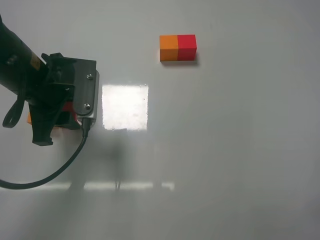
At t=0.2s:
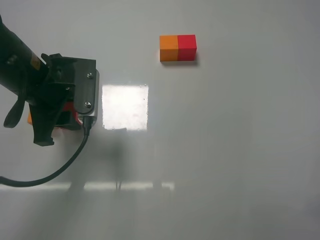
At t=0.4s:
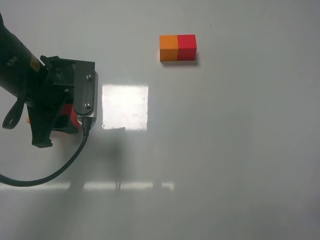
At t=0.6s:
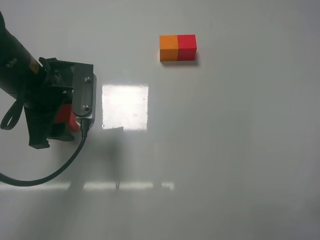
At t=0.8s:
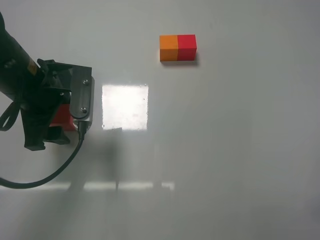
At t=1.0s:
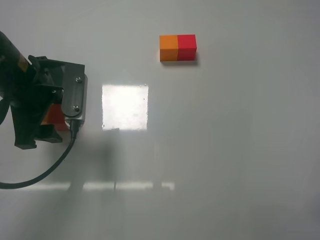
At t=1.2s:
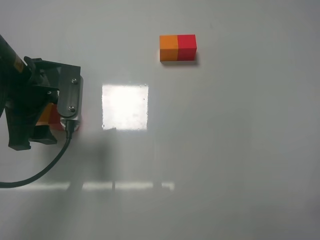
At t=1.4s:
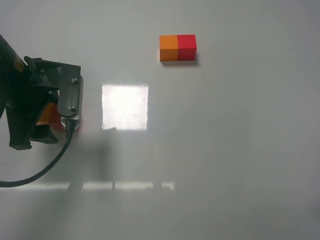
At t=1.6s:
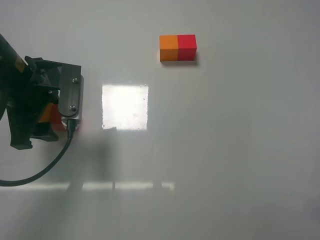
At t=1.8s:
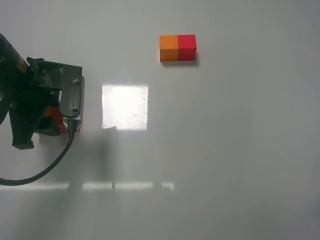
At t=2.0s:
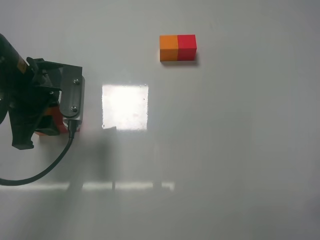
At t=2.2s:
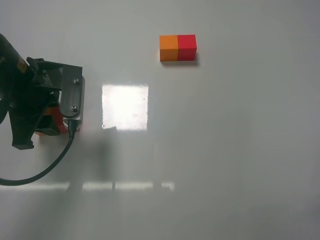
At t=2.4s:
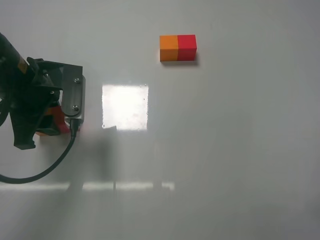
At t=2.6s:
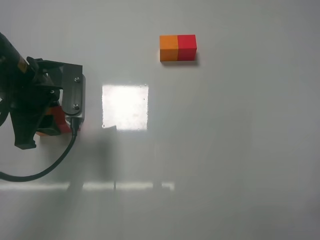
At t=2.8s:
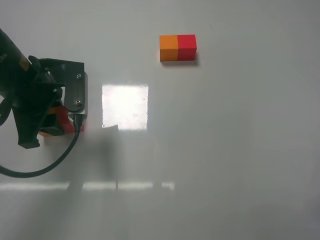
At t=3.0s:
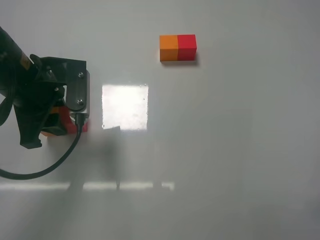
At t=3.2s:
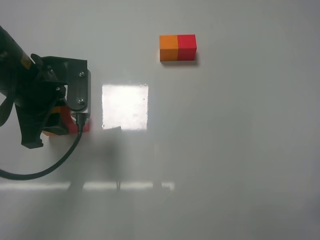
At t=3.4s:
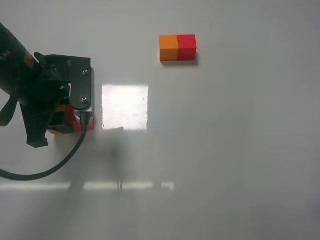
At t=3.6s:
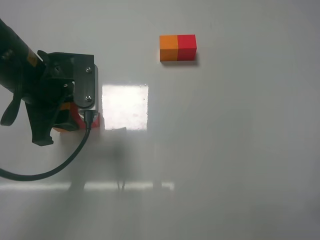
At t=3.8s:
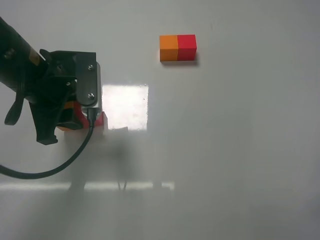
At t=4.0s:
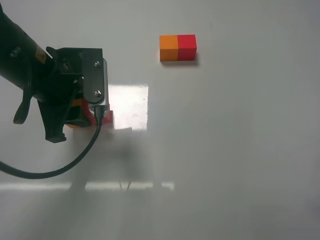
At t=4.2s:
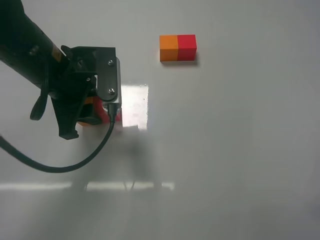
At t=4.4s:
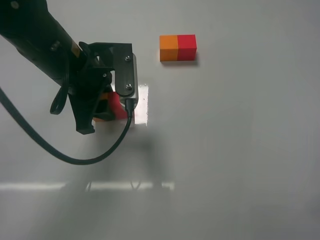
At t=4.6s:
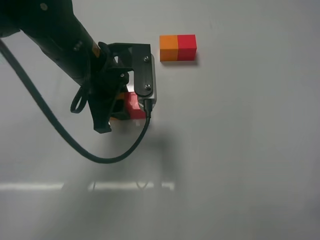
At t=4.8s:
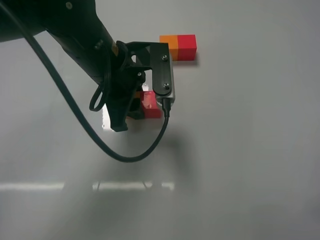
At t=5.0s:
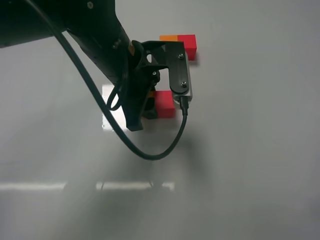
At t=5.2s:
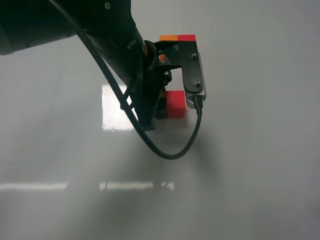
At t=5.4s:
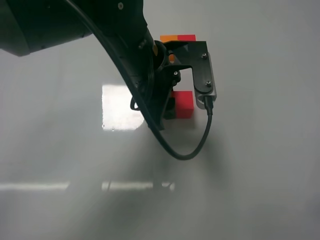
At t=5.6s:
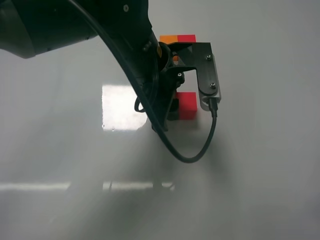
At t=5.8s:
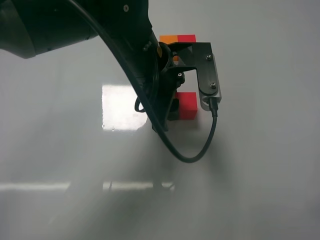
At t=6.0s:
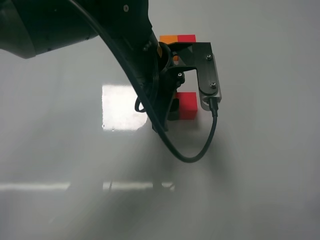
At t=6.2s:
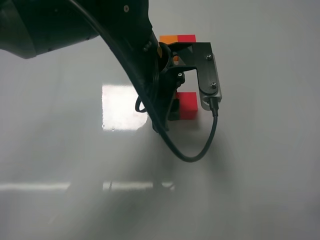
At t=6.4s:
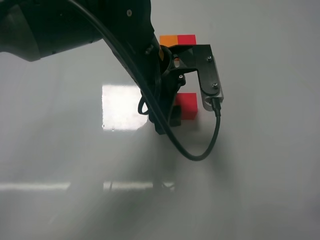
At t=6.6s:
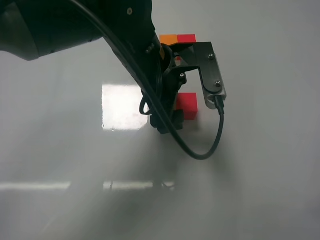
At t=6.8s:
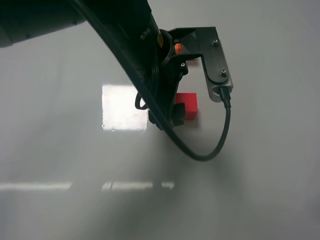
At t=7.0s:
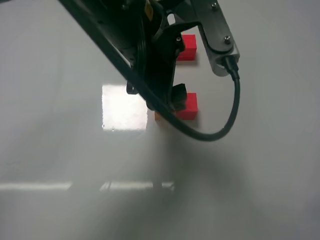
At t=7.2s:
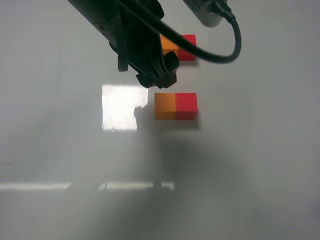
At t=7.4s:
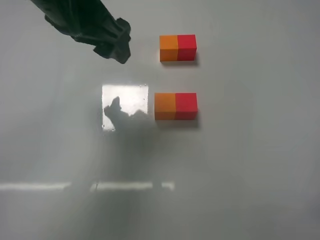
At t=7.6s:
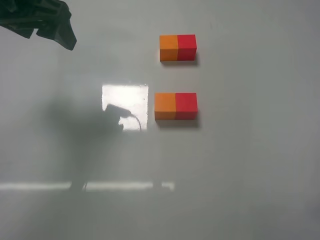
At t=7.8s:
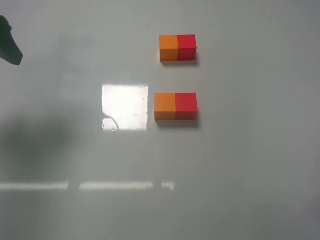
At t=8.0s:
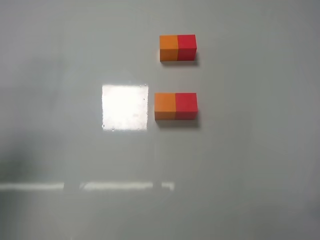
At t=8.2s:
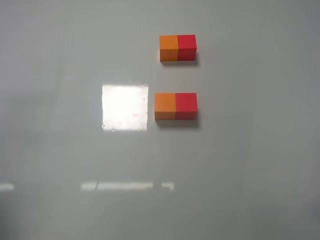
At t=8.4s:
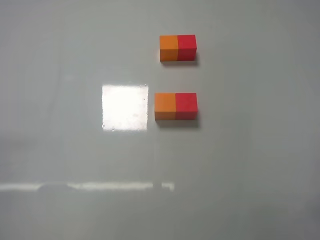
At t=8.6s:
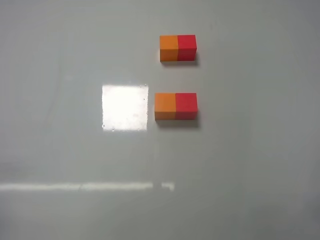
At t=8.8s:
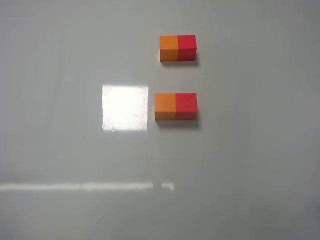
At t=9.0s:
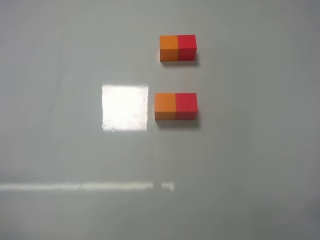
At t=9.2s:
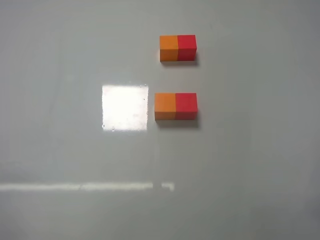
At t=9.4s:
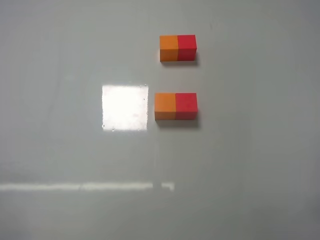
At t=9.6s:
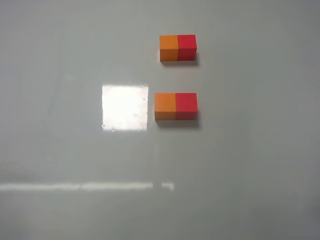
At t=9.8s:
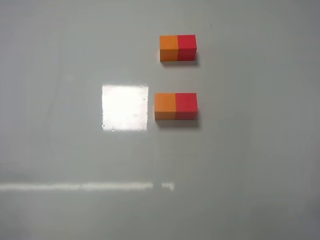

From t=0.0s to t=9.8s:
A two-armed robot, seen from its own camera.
Task of the whole recording: According to the building block template in front, assemble the scattered blocks together.
Step, from t=1.0s to t=6.8s: Put the red cube and orange cube in the center of the table with the left gripper.
From t=0.0s to t=1.4s: The left gripper opens its fingers.
From t=1.4s to t=2.8s: The left gripper closes its fingers.
From t=2.8s to t=4.2s: The left gripper shifts roughly 5 cm to the right.
From t=4.2s to t=5.6s: The left gripper shifts some 15 cm to the right.
From t=5.6s to t=7.0s: The left gripper is displaced upward by some 5 cm, and opens its fingers.
From t=7.0s to t=8.4s: The left gripper shifts some 40 cm to the left and backward.
